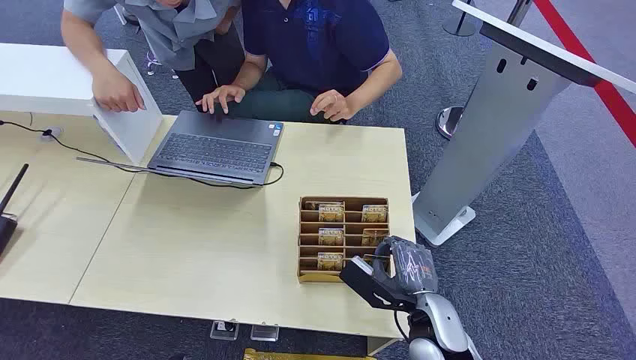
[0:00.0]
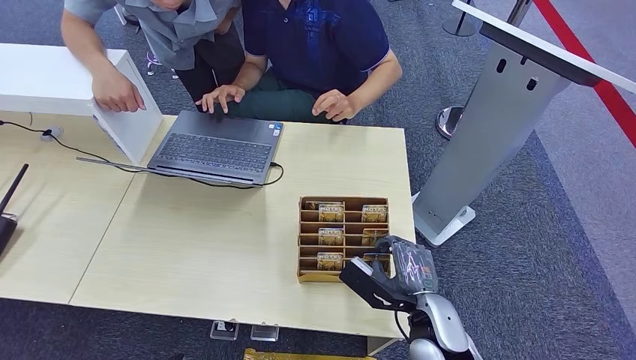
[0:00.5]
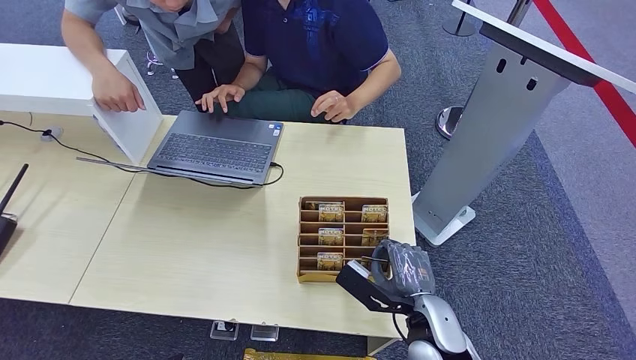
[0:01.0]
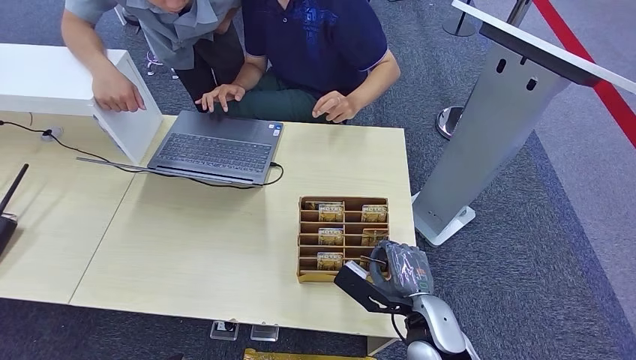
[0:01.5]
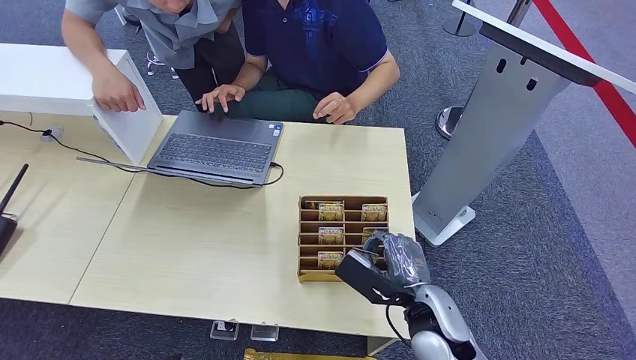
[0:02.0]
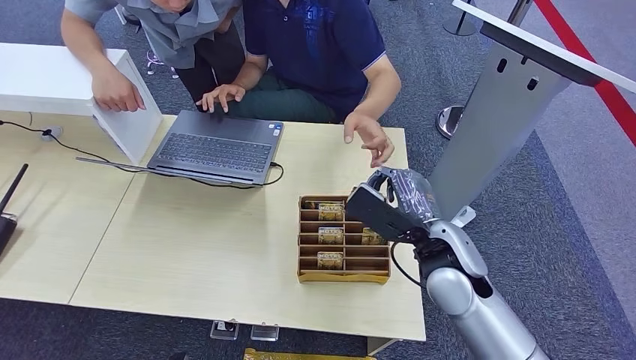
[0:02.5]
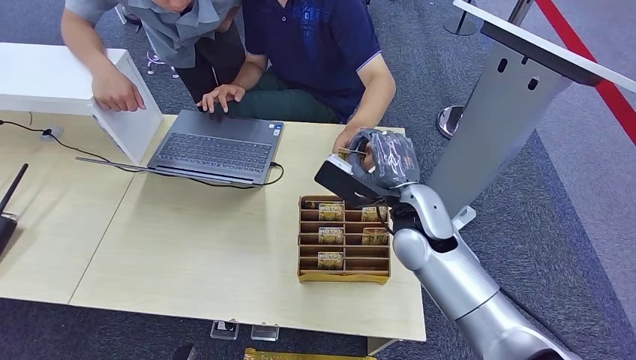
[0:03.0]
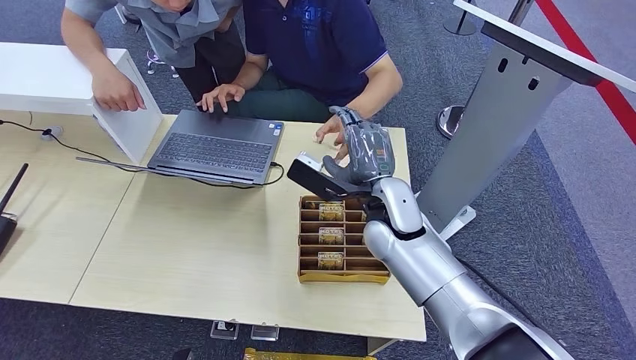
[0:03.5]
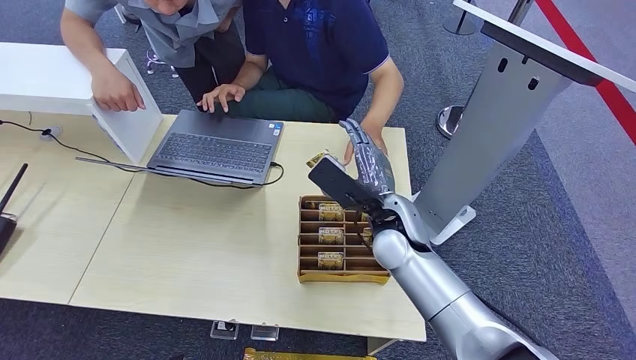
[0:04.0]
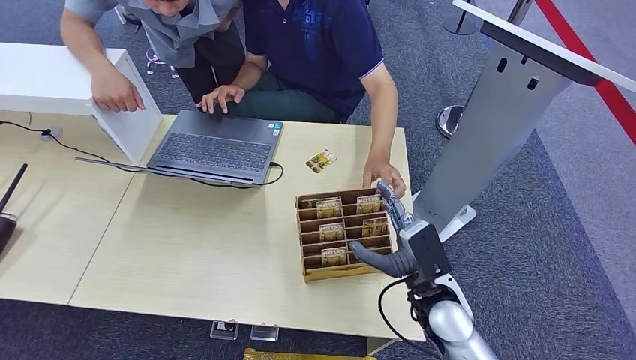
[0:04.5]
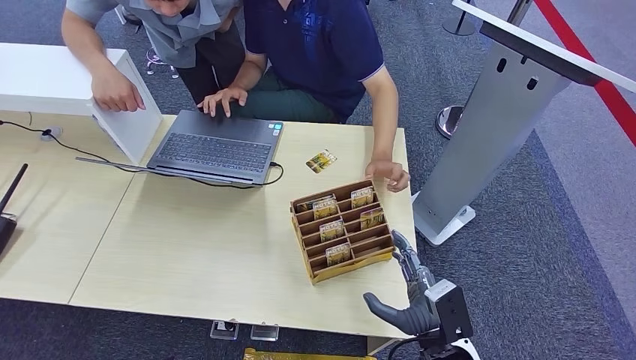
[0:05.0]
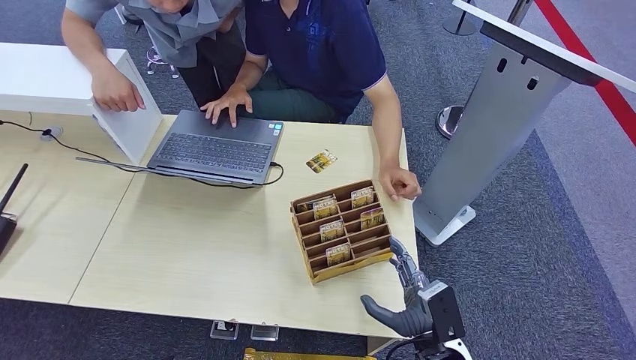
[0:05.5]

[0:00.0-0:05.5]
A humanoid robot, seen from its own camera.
Step, 0:00.0 to 0:02.5: Pick up the room card from the card holder.
Step, 0:03.0 to 0:05.5: Hand the room card to the target.
0:02.0 to 0:03.5: The right hand shifts roughly 15 cm forward and to the left.
0:03.5 to 0:05.5: The right hand heads backward, downward and to the right, covering approximately 30 cm.
